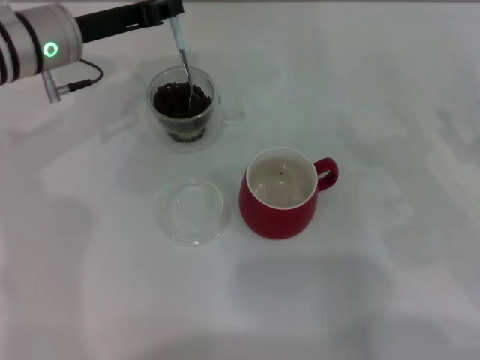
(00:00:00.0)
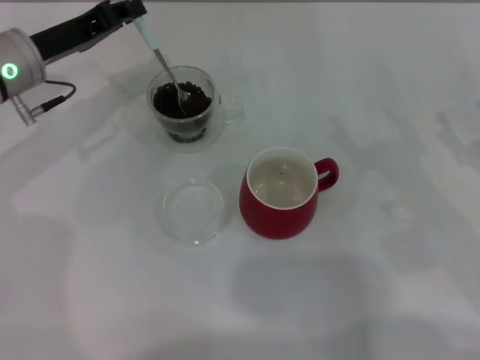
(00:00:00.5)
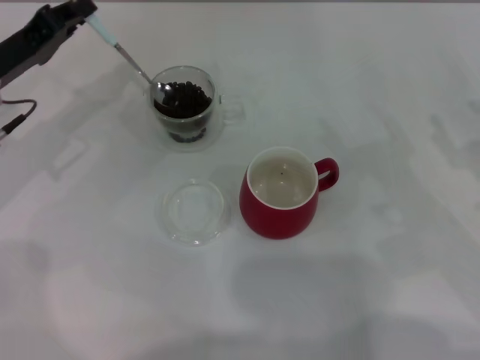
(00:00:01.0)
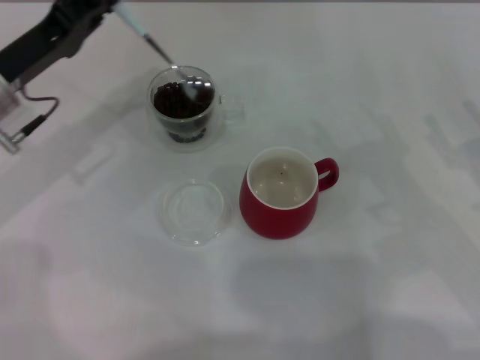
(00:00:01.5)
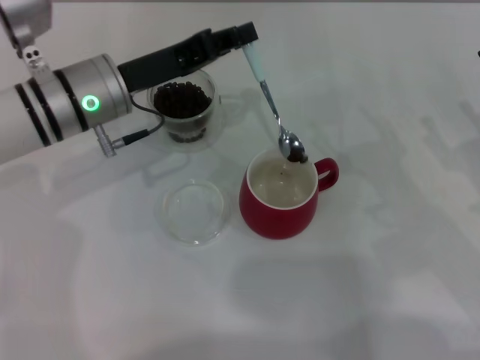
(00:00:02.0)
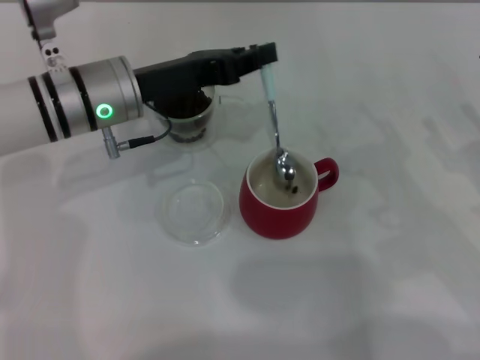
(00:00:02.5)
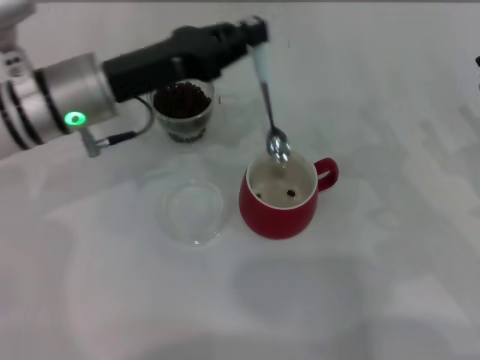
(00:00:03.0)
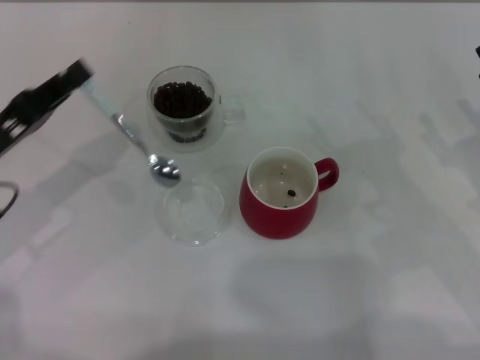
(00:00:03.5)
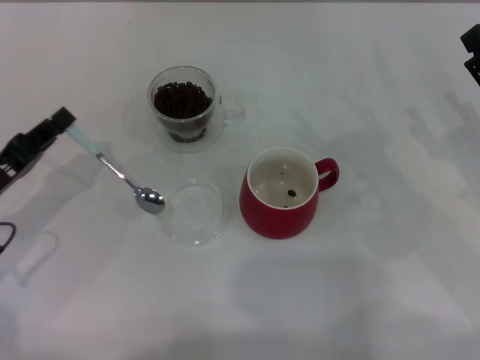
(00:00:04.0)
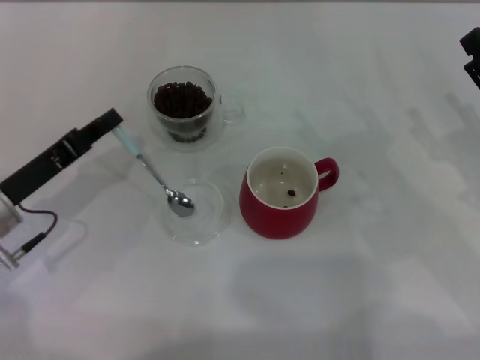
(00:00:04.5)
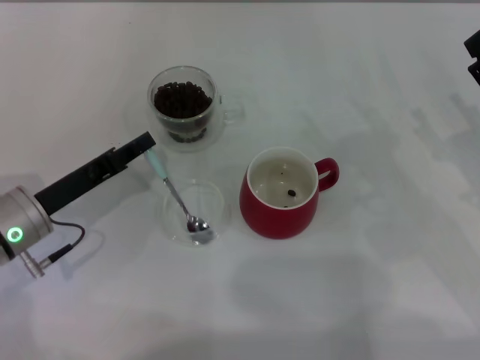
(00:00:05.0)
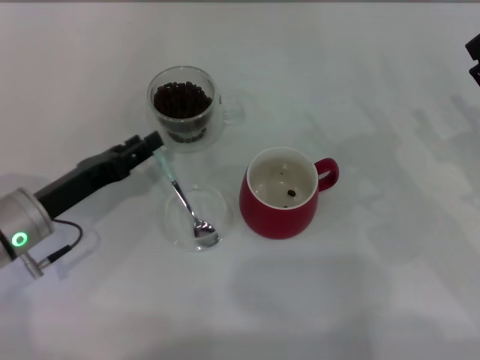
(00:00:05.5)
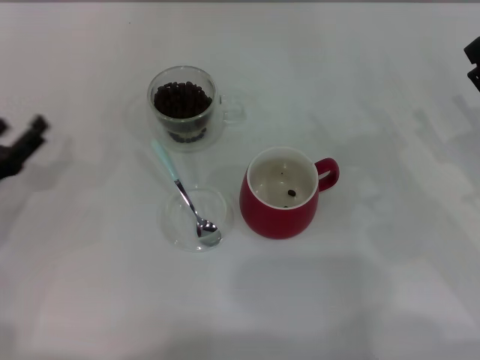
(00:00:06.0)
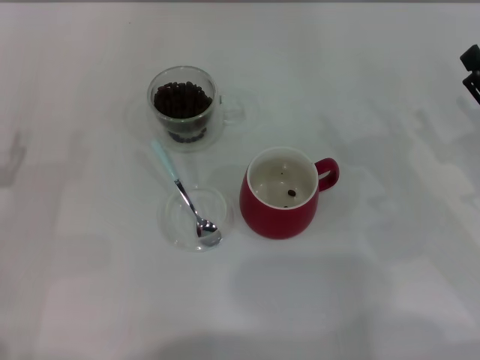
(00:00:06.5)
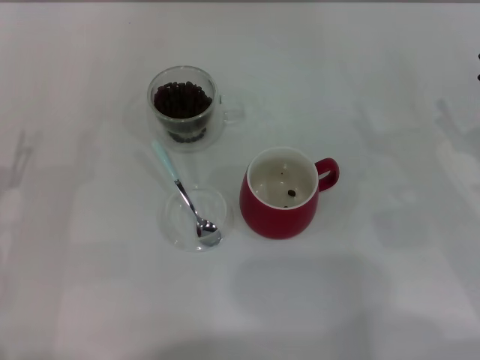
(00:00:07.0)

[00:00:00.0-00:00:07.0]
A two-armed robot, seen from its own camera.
Task of the whole recording: Use a blue spoon to take out the coffee beans from the glass and pour them into the red cup.
Step, 00:00:03.5 to 00:00:05.5: Place the spoon back in its original place with the right gripper.
00:00:00.0 to 00:00:02.0: The left gripper shifts roughly 5 cm backward, and travels to the left and back again, about 10 cm each way.
00:00:02.0 to 00:00:03.5: The left gripper heads to the left and backward, covering roughly 15 cm.
00:00:03.5 to 00:00:05.0: The left gripper changes place by approximately 5 cm.
00:00:05.0 to 00:00:07.0: The left gripper moves to the left, roughly 5 cm, and opens its fingers.
